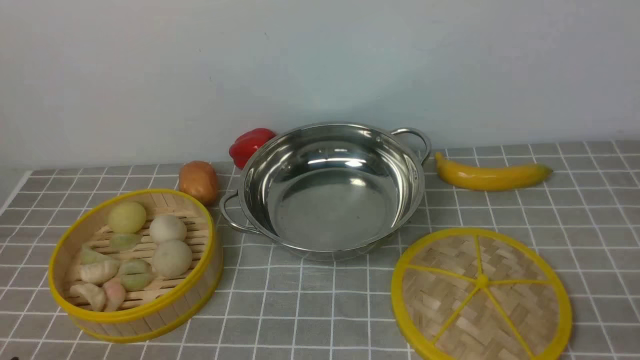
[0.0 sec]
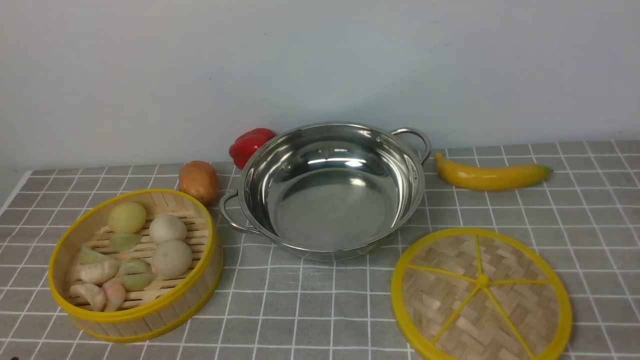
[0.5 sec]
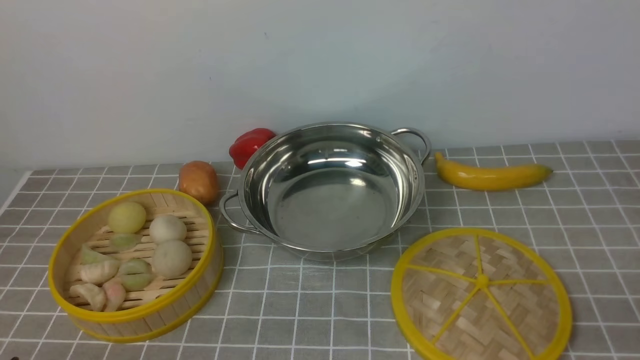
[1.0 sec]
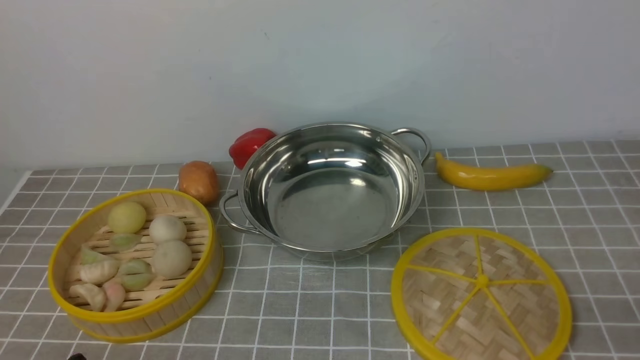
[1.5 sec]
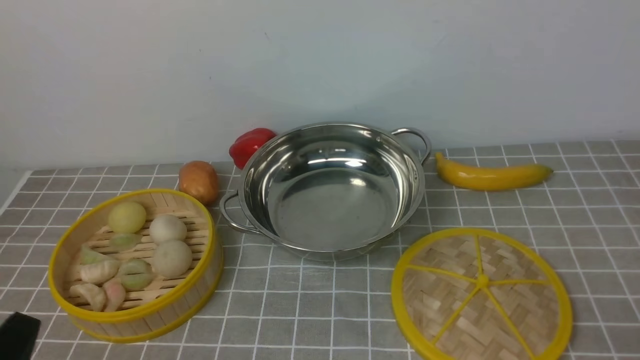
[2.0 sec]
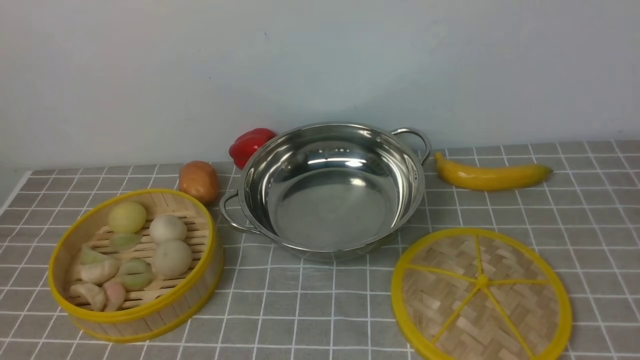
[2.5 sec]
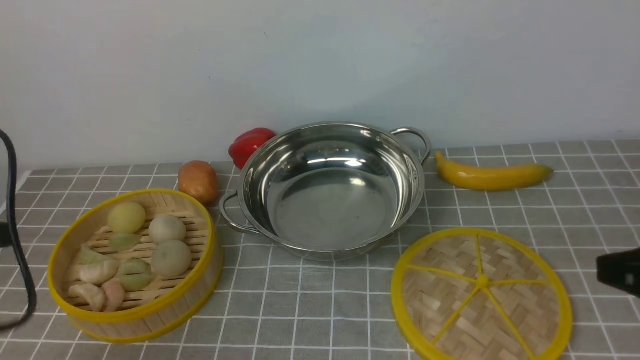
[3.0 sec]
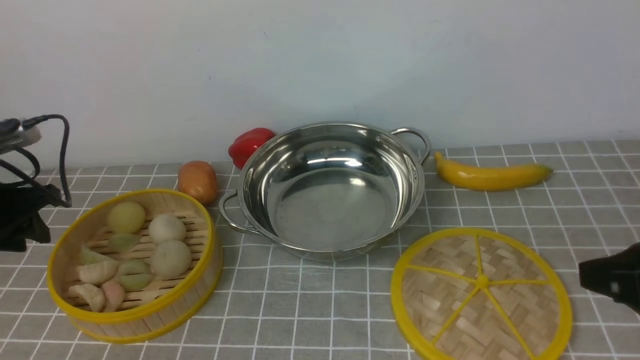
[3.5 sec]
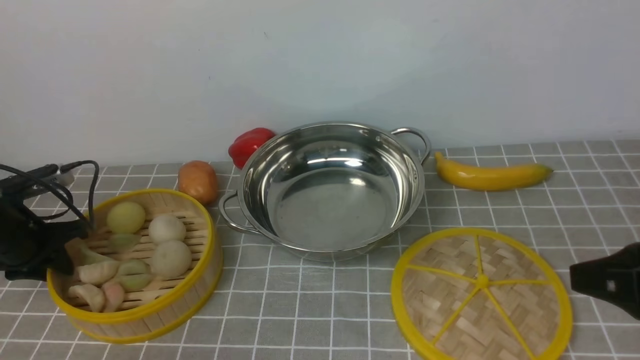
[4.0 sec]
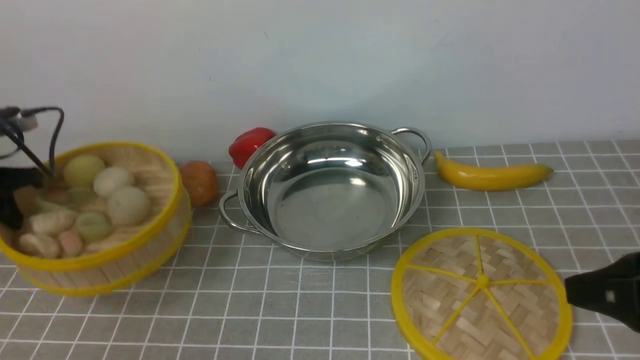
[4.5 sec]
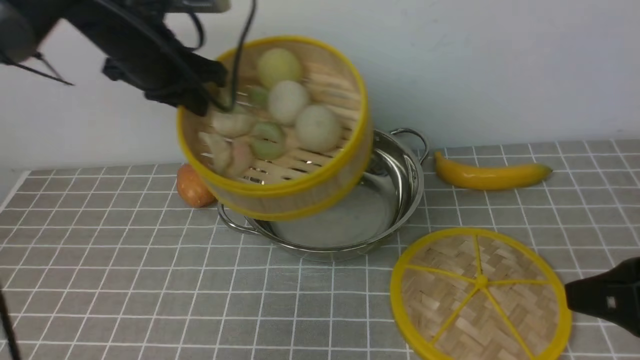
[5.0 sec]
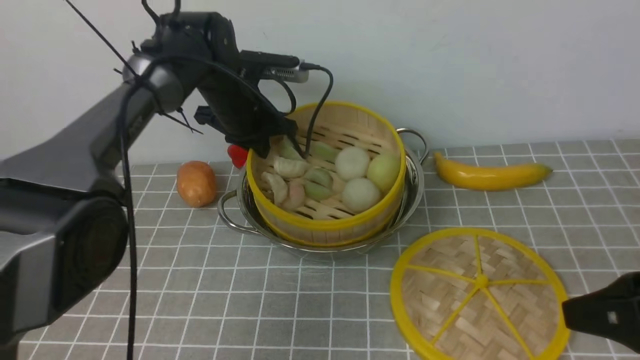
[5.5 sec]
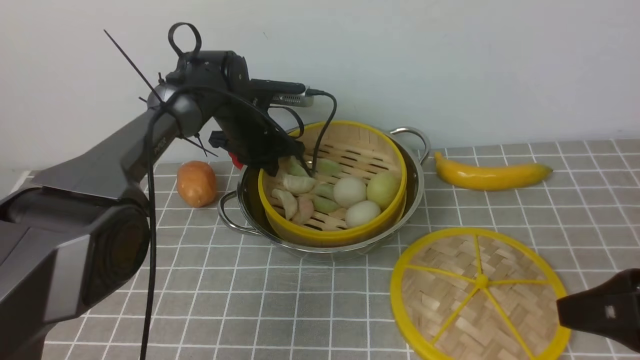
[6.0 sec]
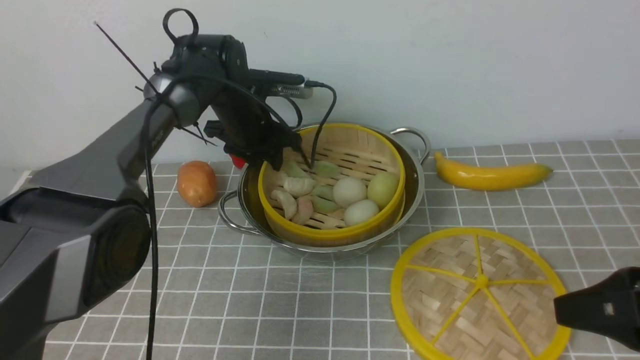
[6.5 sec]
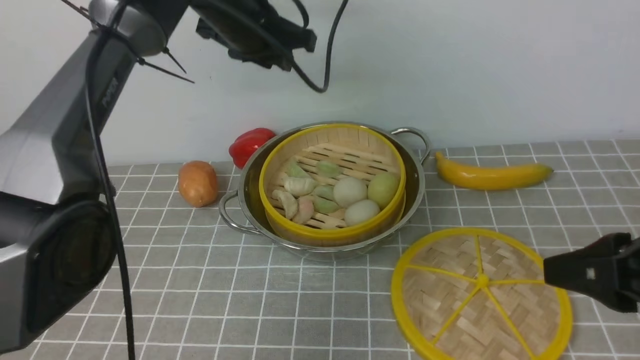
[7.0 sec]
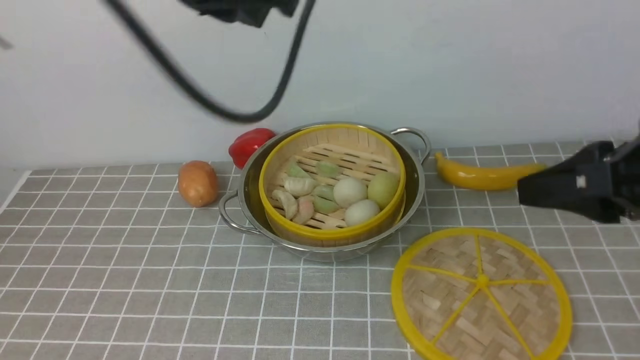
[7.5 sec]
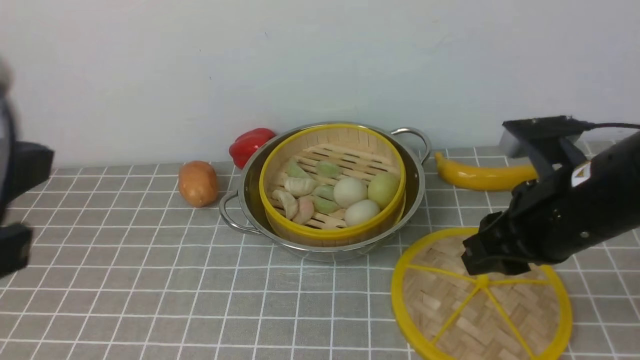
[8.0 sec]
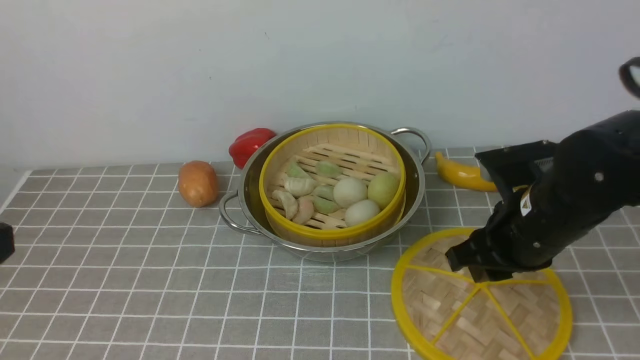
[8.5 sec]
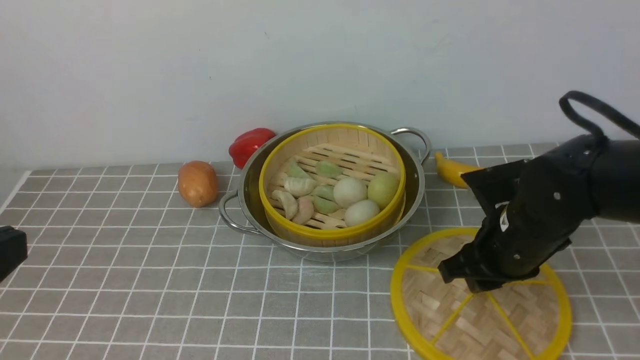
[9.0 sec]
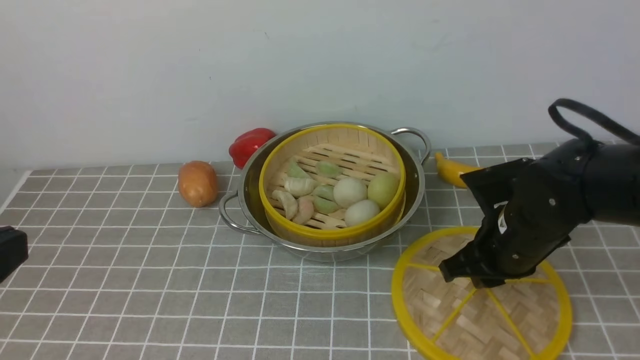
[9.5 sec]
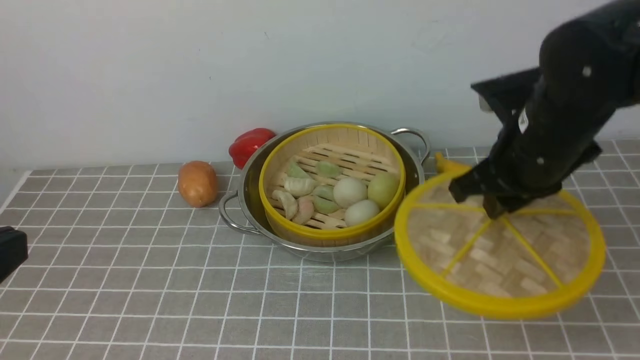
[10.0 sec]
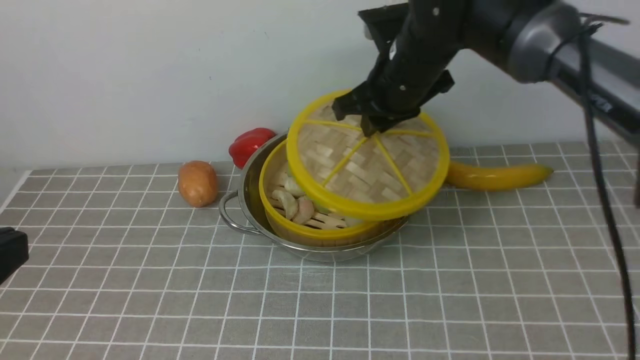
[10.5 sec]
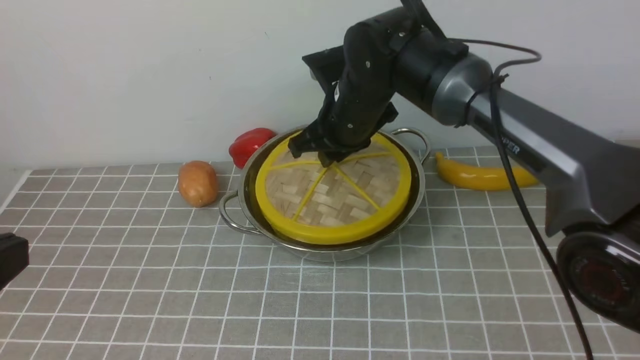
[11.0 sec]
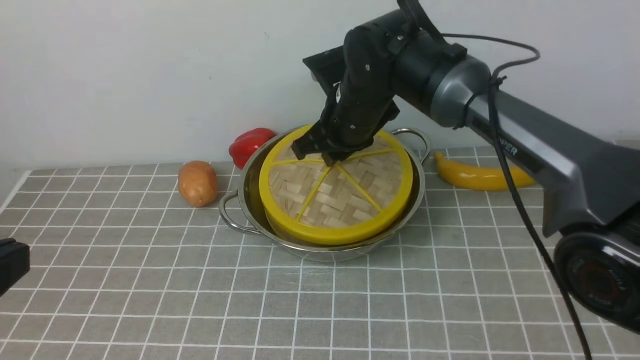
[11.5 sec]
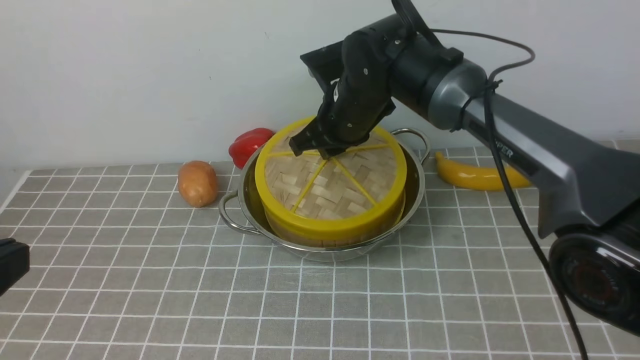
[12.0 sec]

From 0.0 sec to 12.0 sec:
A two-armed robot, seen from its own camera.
Task of the whole recording: place the steamer in the pot on the grey tablecloth, and put the lid on the steamer.
Step, from 0.0 sec to 4.0 sec: use the left arm to lift the steamer closest to it.
Step, from 4.5 sec to 6.5 sec: use the left arm to put the steamer into the iron steamer pot in the middle.
Step, from 7.0 sec to 9.5 sec: use the right arm to lift the lid of the steamer.
From 2.0 sec to 4.0 sec: The right gripper moves forward, upward and to the left, some 15 cm, while the left gripper goes roughly 35 cm forward and to the left.
From 4.0 sec to 6.0 sec: The left gripper is displaced to the right and forward by about 30 cm, and closes.
From 6.0 sec to 8.0 sec: The left gripper is displaced backward and upward by approximately 40 cm, and opens, then closes again. The right gripper is displaced forward and to the left by about 10 cm.
From 8.0 sec to 10.0 sec: The right gripper goes roughly 5 cm forward, and reaches about 10 cm downward, then returns. The left gripper goes roughly 10 cm backward and downward.
From 10.0 sec to 12.0 sec: The right gripper goes approximately 20 cm to the left and forward.

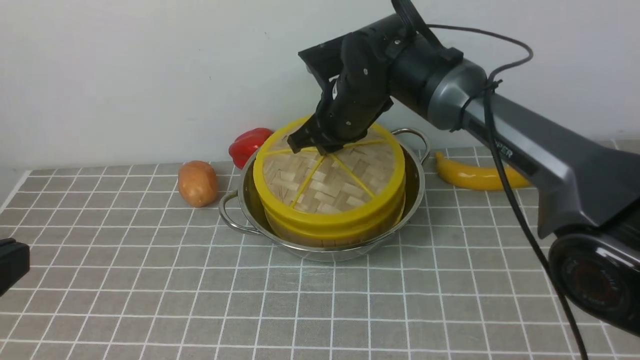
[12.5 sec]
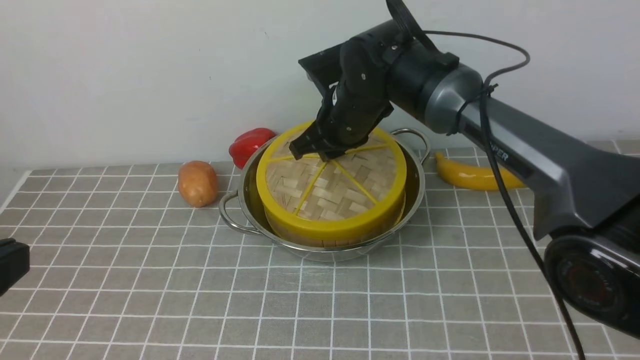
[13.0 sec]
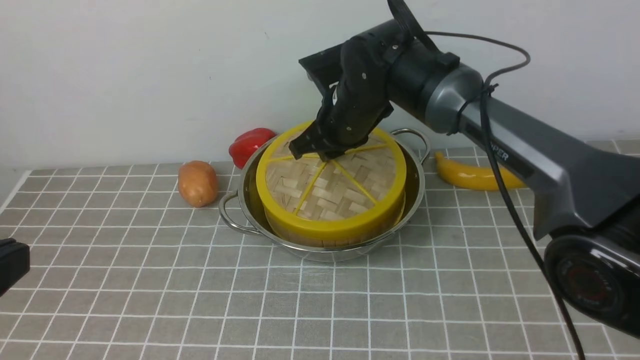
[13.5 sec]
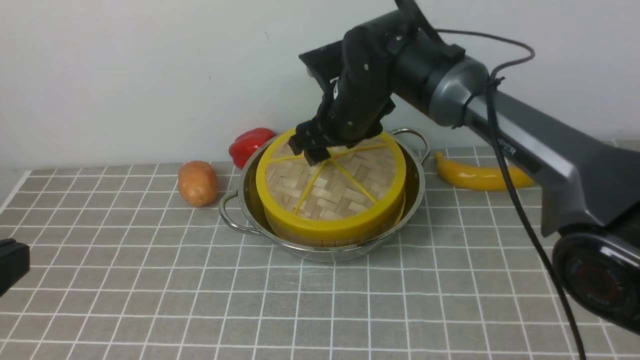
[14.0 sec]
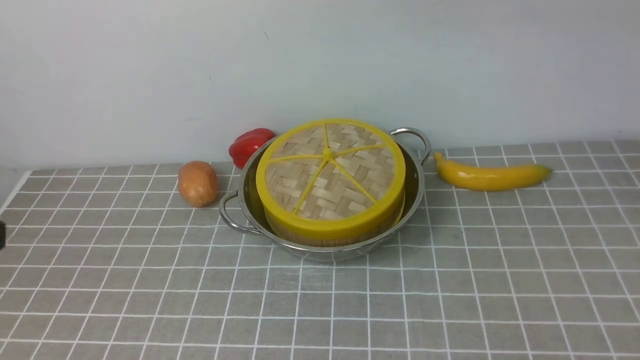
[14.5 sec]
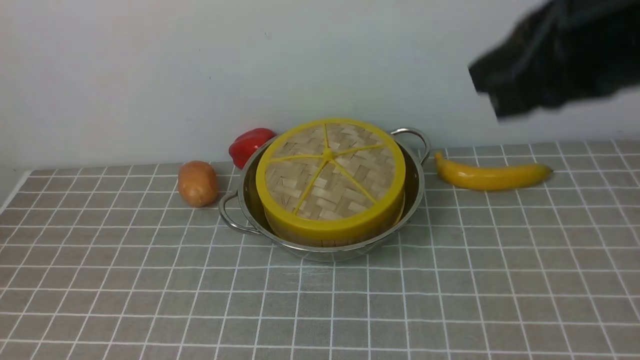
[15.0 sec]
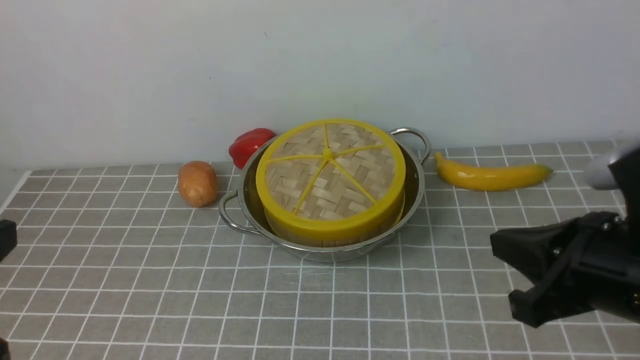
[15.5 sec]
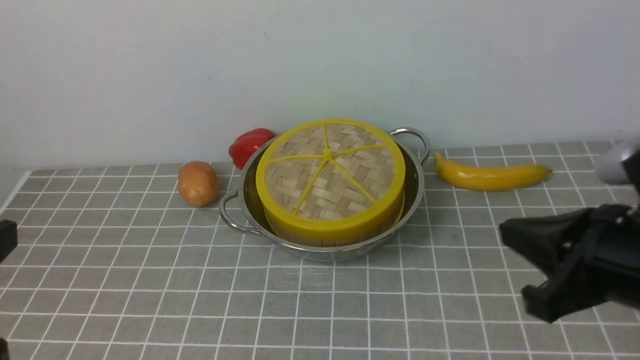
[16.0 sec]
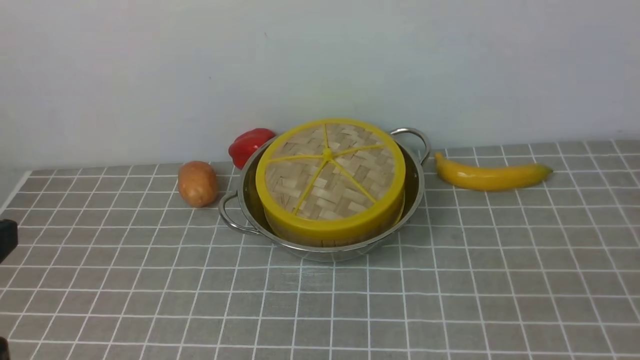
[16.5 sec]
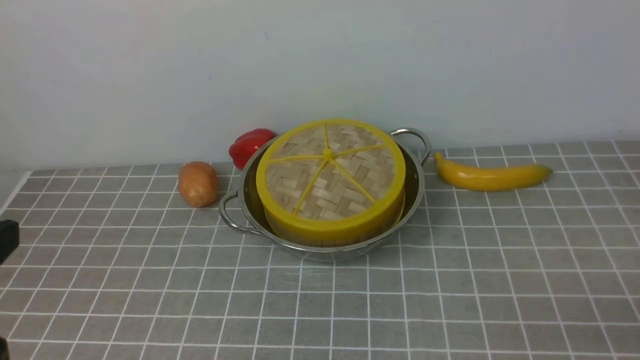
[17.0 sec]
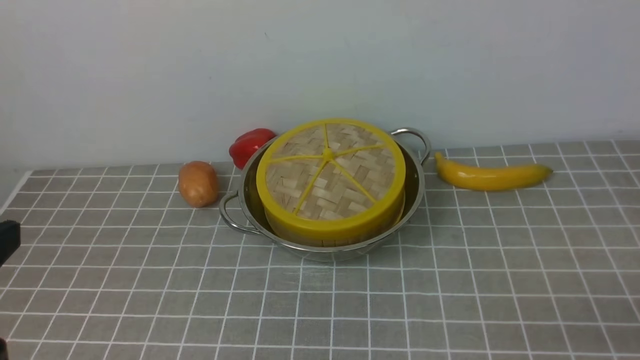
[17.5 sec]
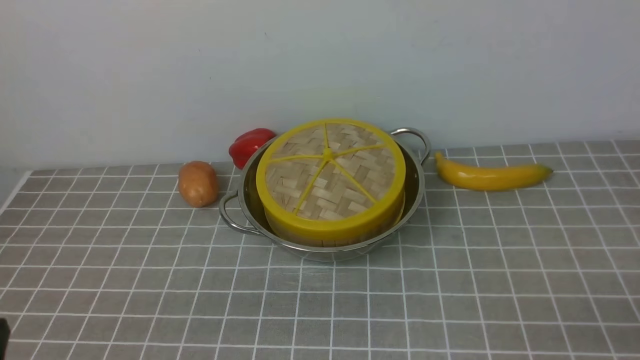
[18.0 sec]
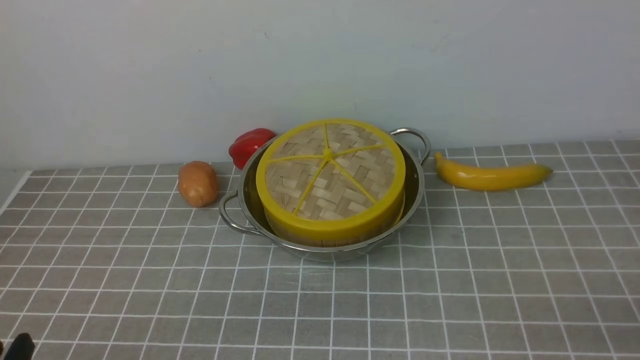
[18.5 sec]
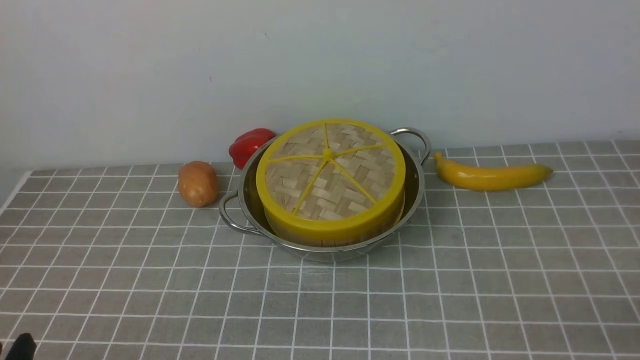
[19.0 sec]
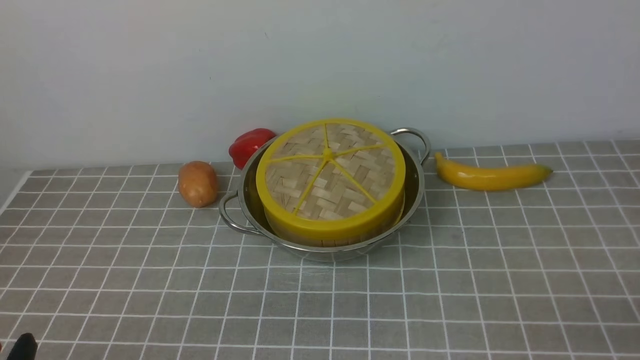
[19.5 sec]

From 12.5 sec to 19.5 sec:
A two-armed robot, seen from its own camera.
Task of the whole recording: place the steamer in the pot on the grey tablecloth, and put the lid on the steamer.
From 12.5 sec to 14.5 sec: The right gripper travels upward and backward by roughly 25 cm, and opens.
From 14.5 sec to 16.0 sec: The right gripper heads backward, downward and to the right, covering some 30 cm, and closes up.
From 16.0 sec to 17.5 sec: The right gripper travels backward, to the right and downward by roughly 15 cm.
From 17.5 sec to 19.5 sec: The left gripper travels downward by approximately 15 cm.
